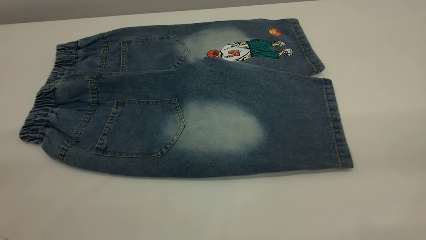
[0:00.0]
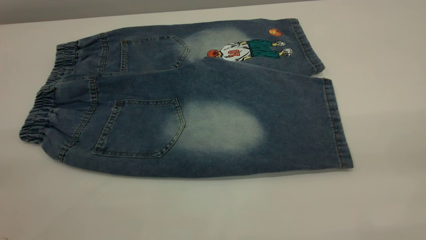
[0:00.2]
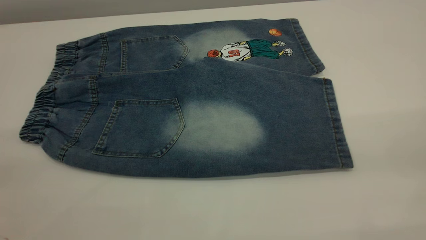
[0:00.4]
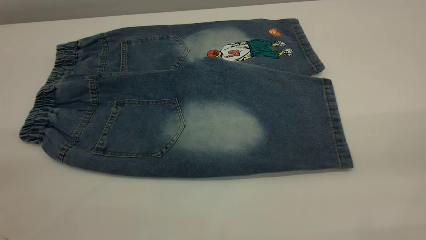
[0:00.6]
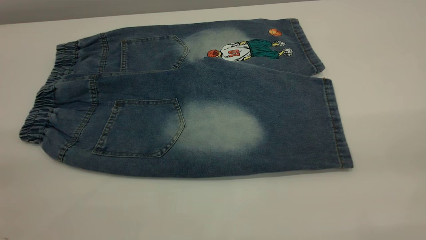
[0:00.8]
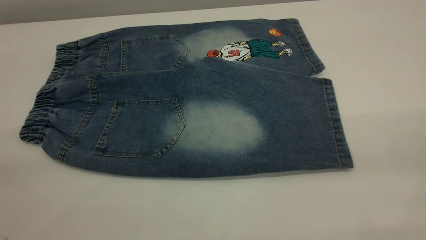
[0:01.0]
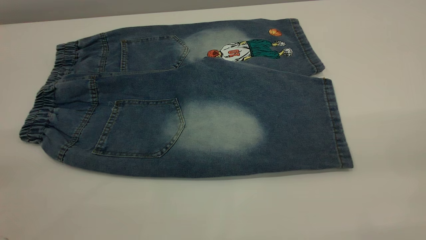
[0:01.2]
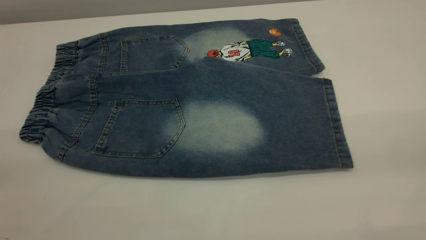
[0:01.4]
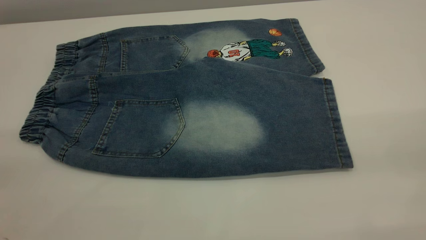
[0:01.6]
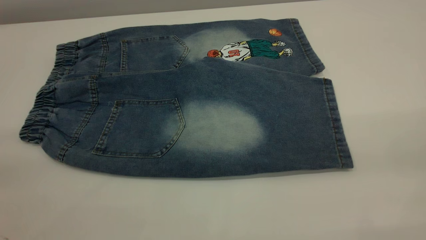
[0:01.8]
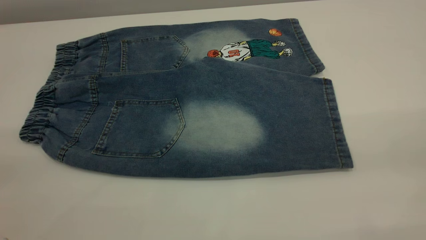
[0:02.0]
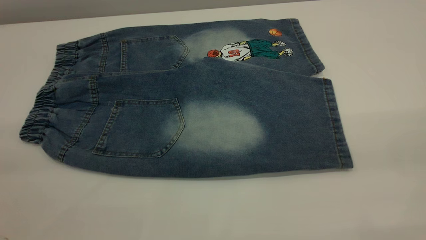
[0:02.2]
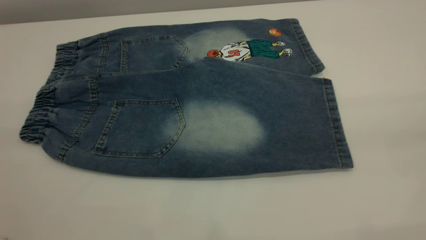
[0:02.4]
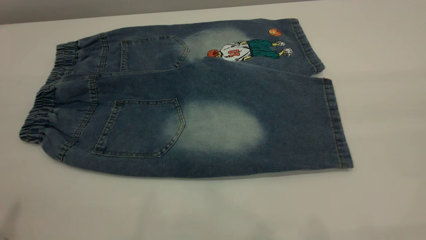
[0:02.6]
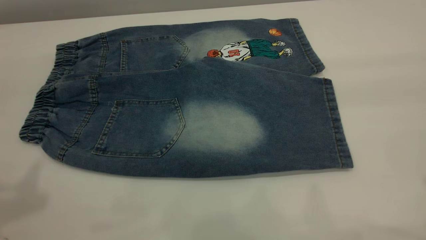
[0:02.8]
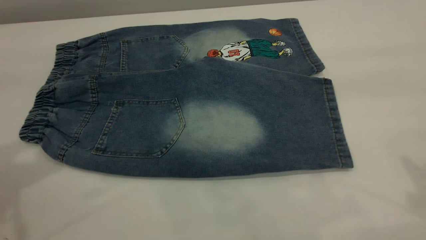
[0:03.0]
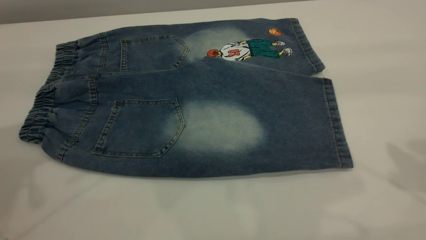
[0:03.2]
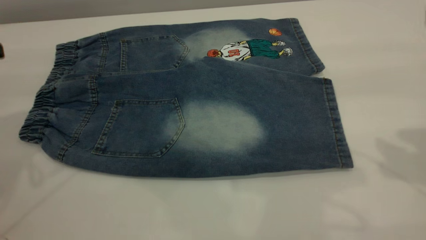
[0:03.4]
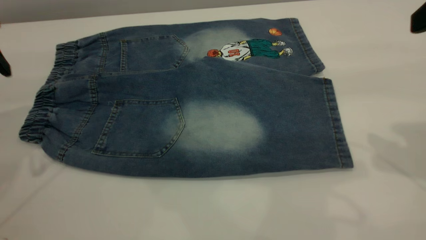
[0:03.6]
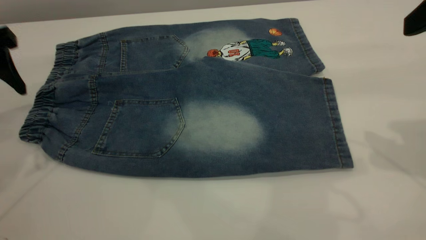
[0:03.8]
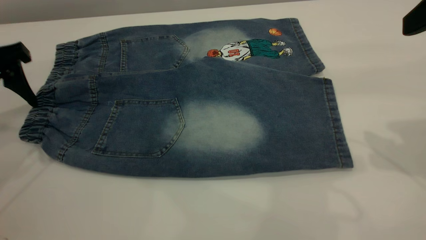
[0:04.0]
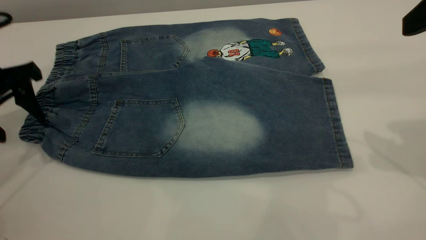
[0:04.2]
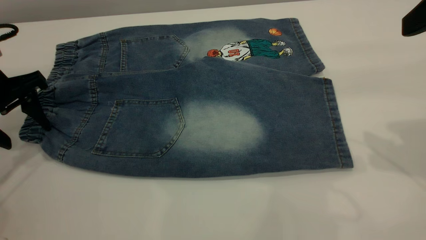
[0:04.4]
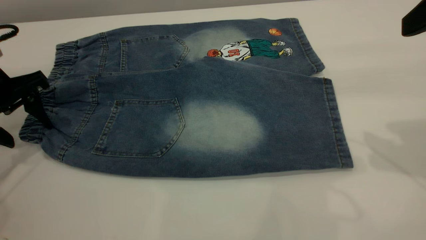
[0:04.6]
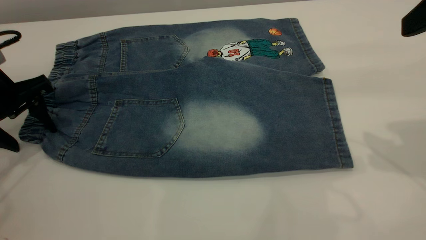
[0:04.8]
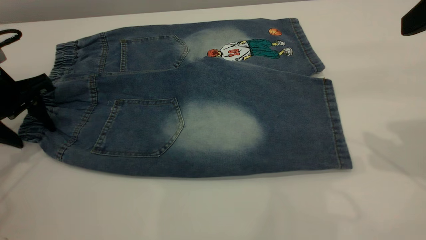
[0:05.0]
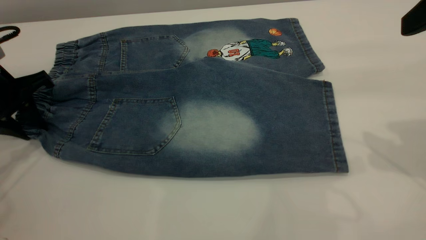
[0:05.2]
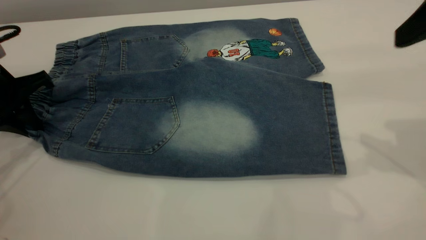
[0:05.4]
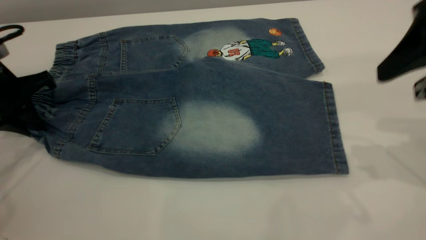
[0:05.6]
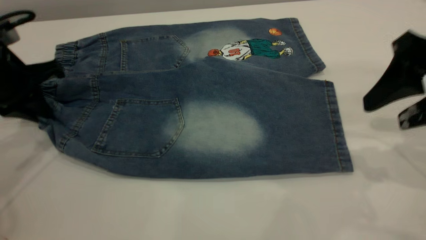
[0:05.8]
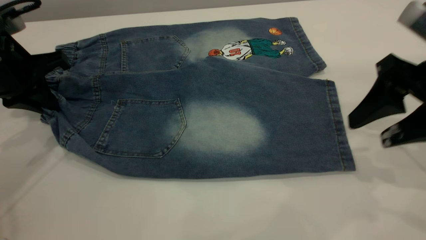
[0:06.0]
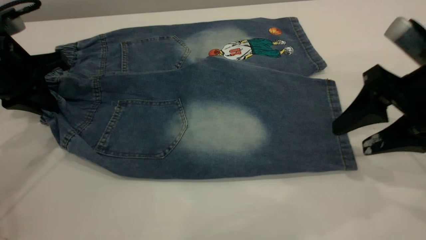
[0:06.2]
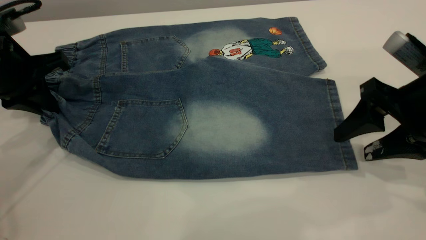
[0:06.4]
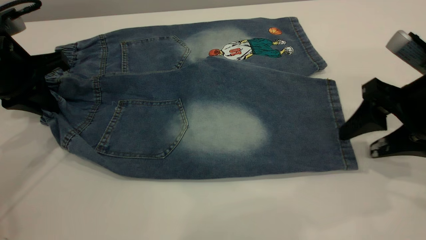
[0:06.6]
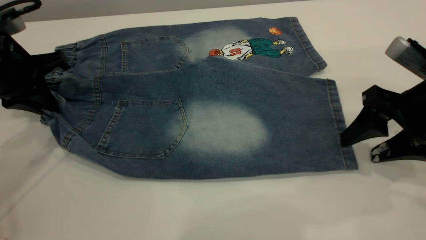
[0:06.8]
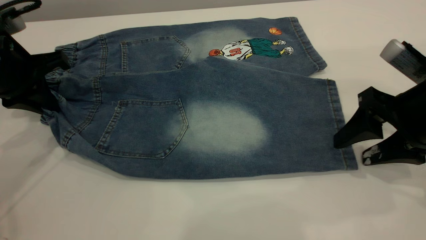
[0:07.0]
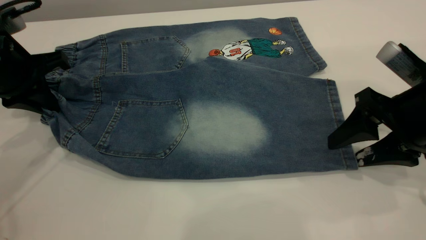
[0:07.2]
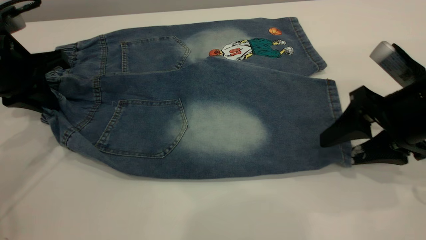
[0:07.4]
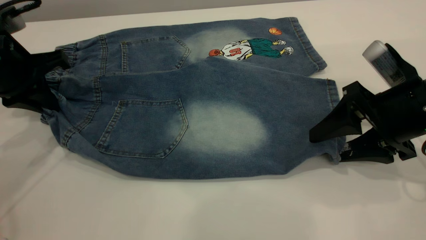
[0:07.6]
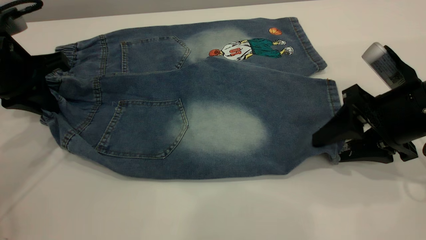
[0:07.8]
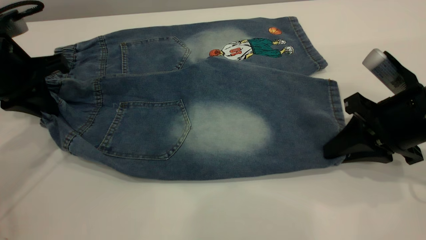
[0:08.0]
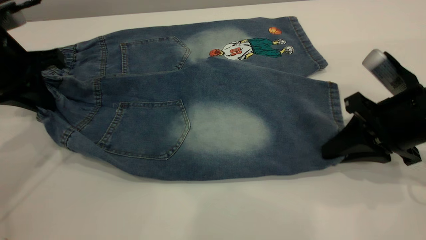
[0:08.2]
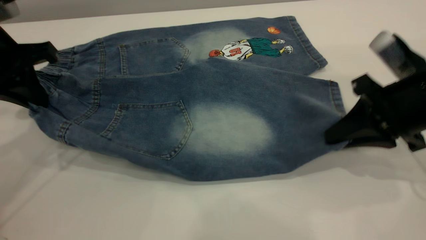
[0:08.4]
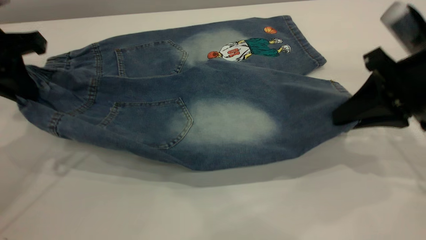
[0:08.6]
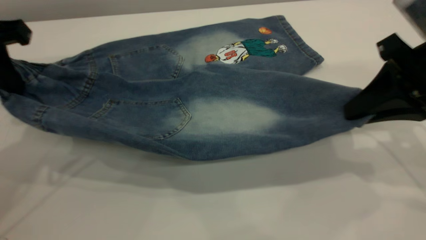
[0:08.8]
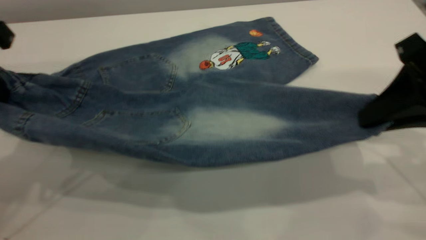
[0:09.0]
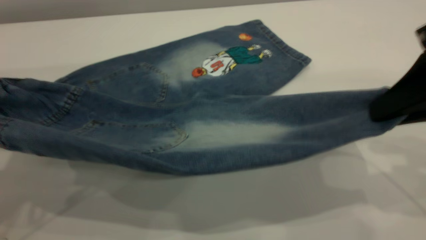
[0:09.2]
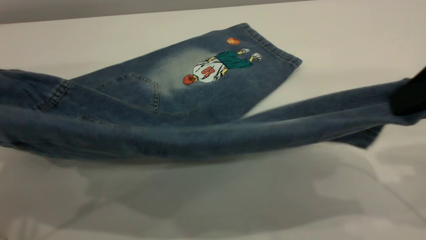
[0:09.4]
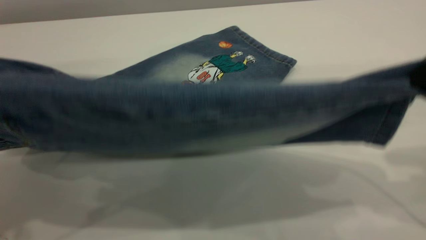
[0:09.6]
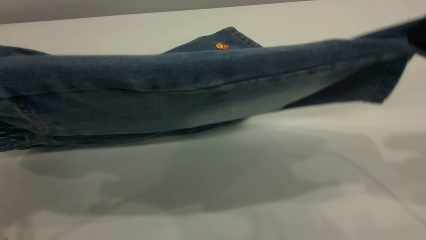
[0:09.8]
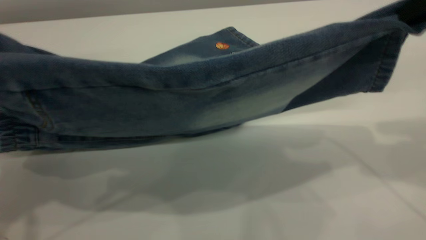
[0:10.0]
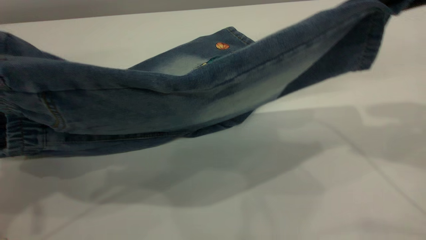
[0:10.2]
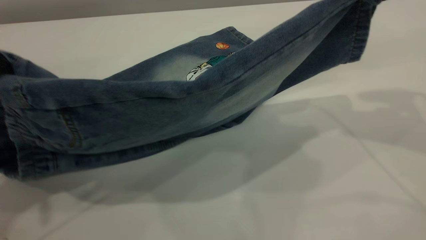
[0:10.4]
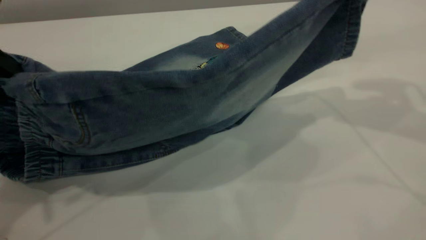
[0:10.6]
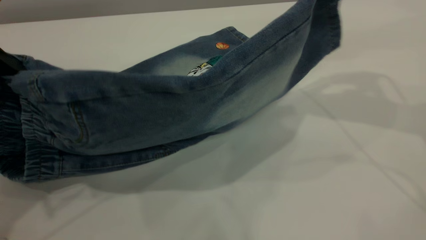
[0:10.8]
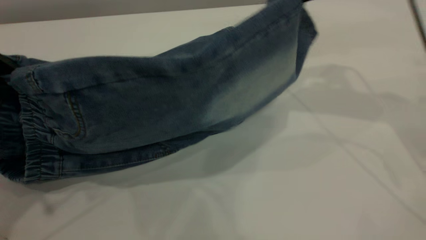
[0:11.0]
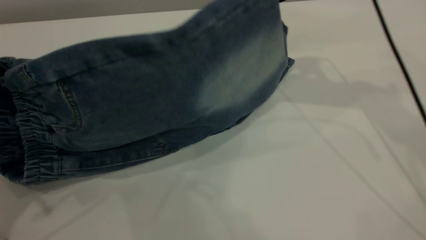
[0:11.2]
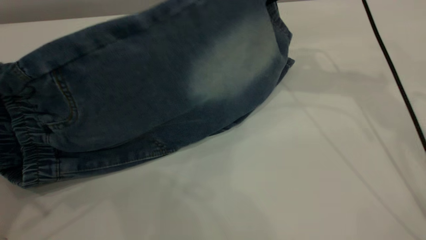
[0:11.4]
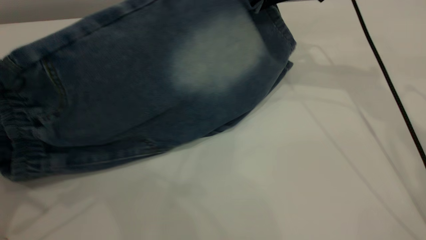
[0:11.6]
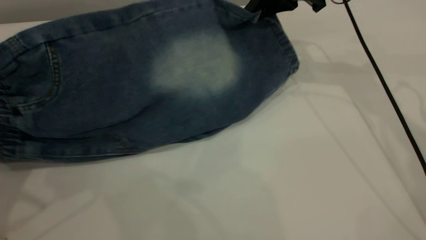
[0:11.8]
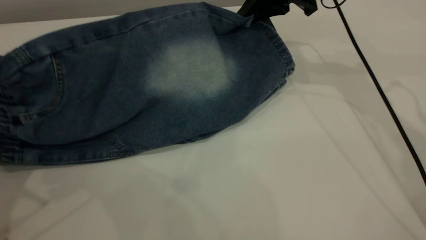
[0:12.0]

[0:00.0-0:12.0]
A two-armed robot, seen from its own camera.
0:00.0 to 0:01.6: Both grippers stay about where they are.
0:03.0 to 0:04.4: The right gripper heads downward and forward, covering some 10 cm; the left gripper moves downward and forward, roughly 20 cm.
0:04.4 to 0:06.0: The right gripper moves downward, some 10 cm. Meanwhile the left gripper closes.
0:06.0 to 0:07.6: The right gripper heads downward, covering some 5 cm.
0:07.6 to 0:09.0: The left gripper travels upward and backward by some 10 cm. Meanwhile the right gripper moves upward, about 10 cm, and closes up.
0:09.0 to 0:10.4: The right gripper heads upward and forward, covering some 15 cm.
0:10.4 to 0:12.0: The right gripper moves forward, to the left and downward, some 20 cm, while the left gripper changes place by approximately 5 cm.

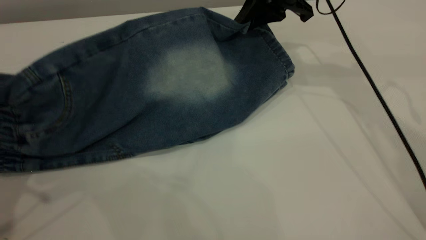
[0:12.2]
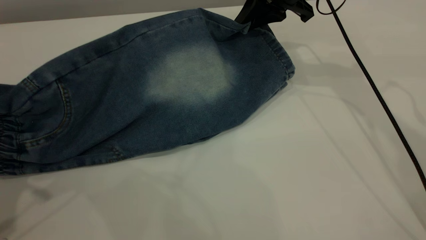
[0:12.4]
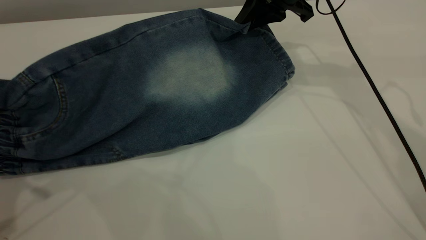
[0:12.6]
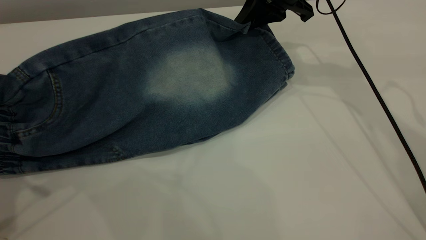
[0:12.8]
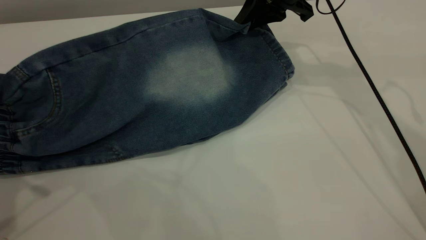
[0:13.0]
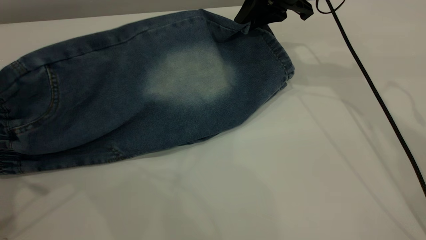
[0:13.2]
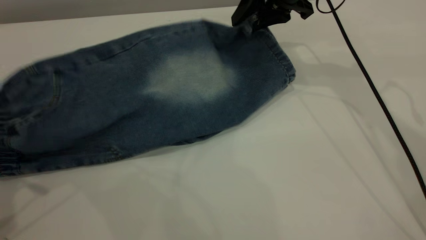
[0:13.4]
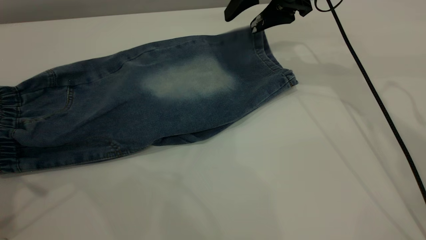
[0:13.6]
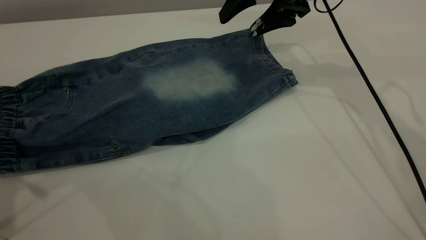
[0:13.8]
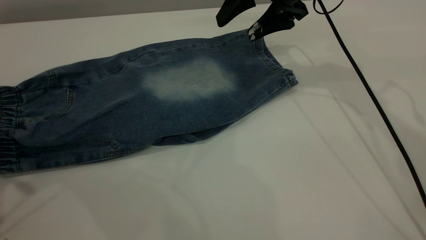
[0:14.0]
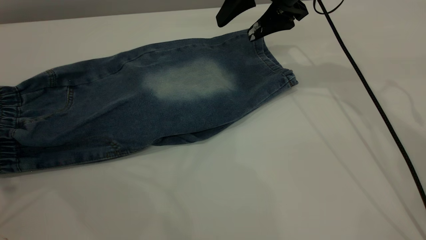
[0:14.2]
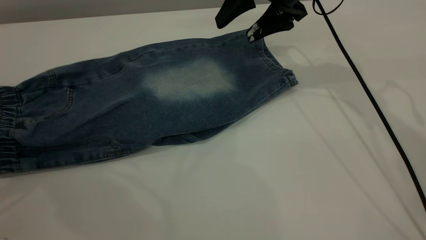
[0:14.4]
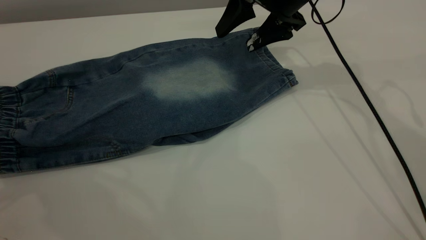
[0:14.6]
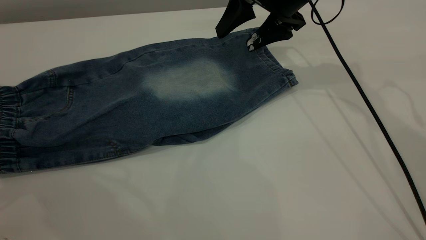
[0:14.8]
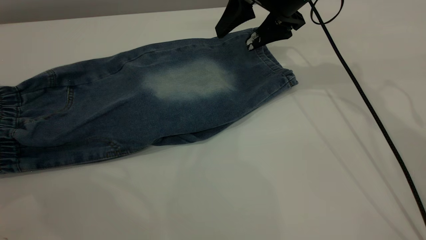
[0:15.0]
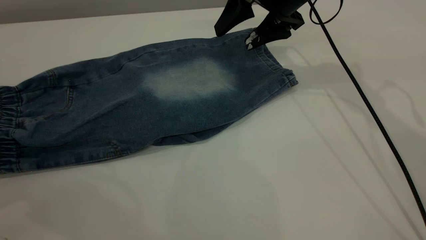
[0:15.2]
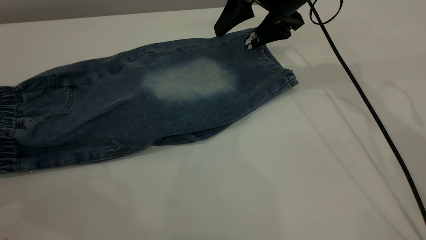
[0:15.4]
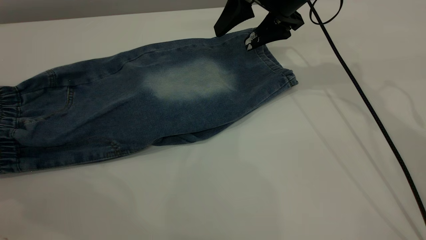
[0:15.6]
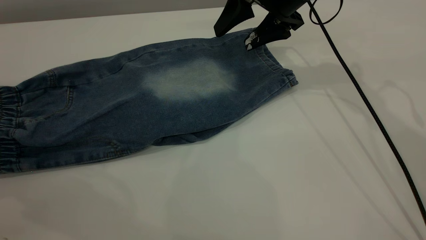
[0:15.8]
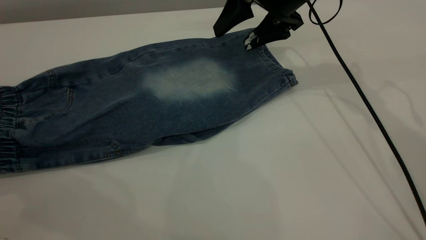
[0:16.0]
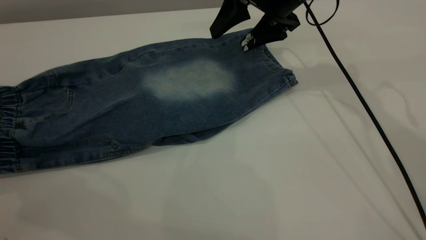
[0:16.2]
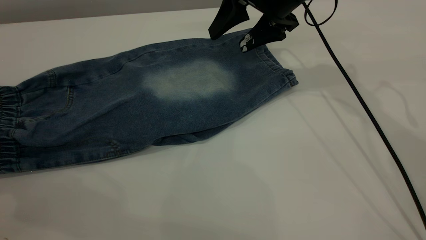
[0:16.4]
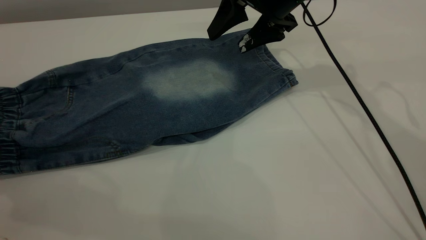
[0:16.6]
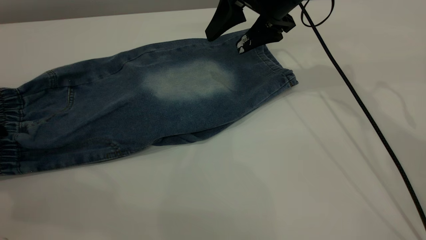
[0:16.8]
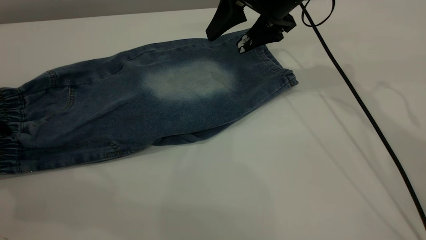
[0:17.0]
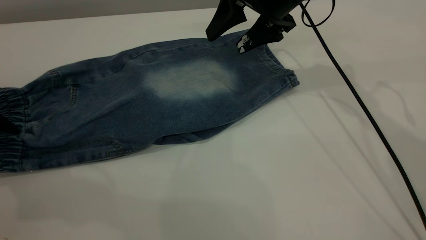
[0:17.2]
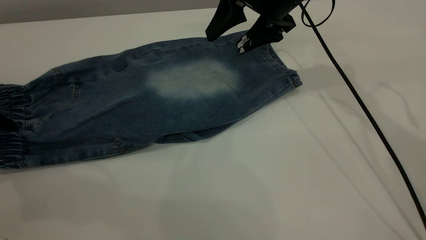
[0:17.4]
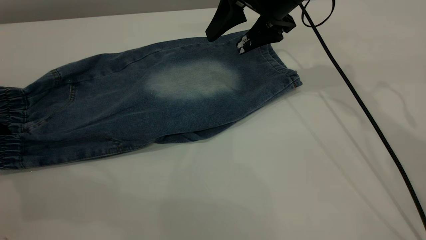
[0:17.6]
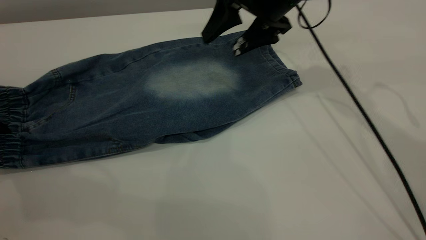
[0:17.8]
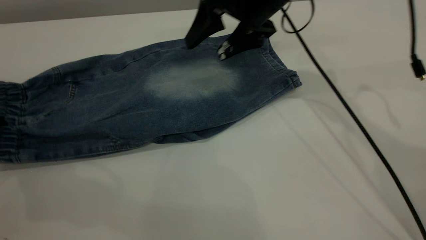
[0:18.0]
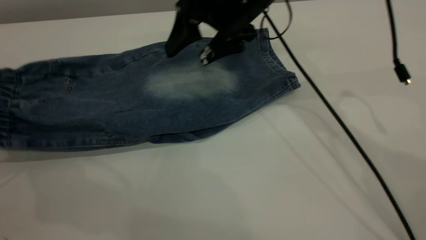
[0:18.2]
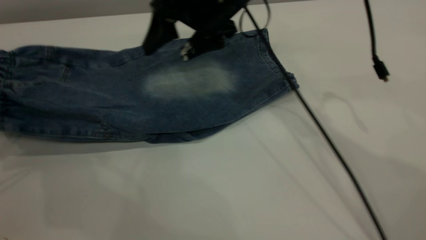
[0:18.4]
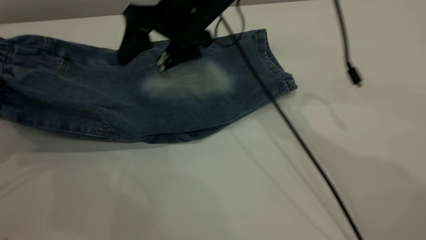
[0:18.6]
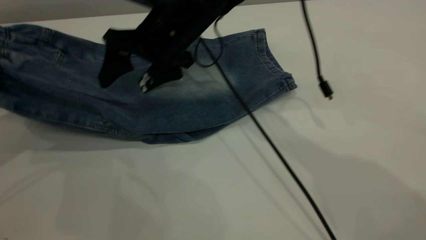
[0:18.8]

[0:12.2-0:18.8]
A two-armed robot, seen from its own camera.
0:12.2 to 0:13.8: The left gripper opens up. Meanwhile the right gripper opens its fingers.
0:13.8 to 0:15.4: The left gripper goes roughly 5 cm to the left.
0:15.4 to 0:17.2: The left gripper shifts by some 5 cm.
0:17.2 to 0:18.8: The right gripper goes some 15 cm to the left; the left gripper travels upward by roughly 10 cm, and closes its fingers.
